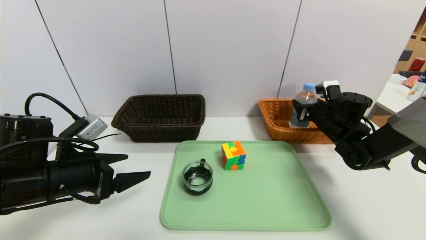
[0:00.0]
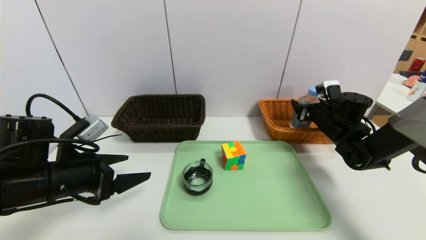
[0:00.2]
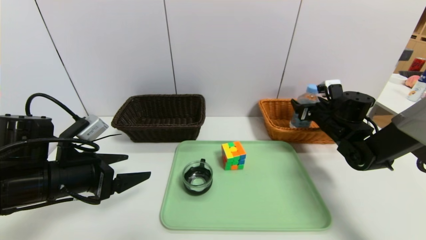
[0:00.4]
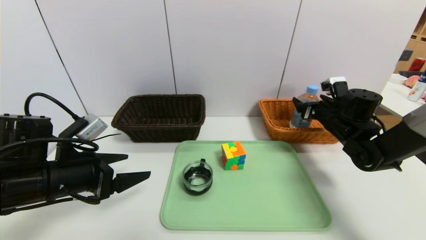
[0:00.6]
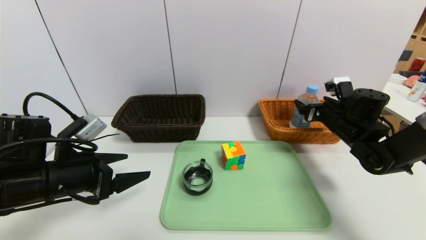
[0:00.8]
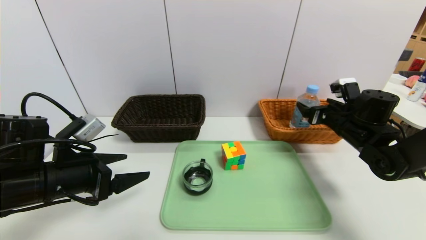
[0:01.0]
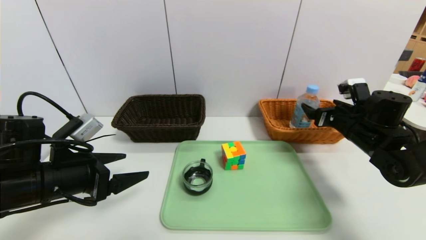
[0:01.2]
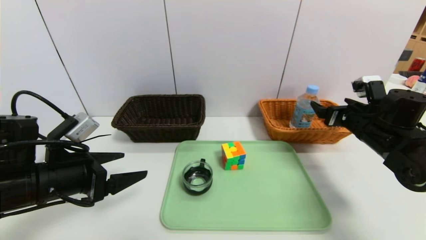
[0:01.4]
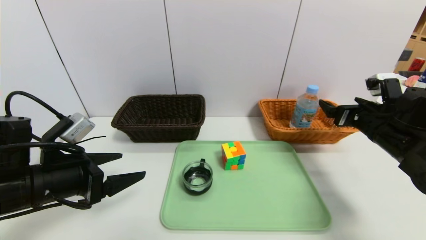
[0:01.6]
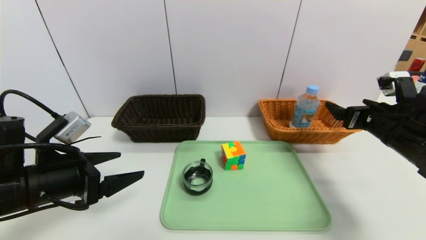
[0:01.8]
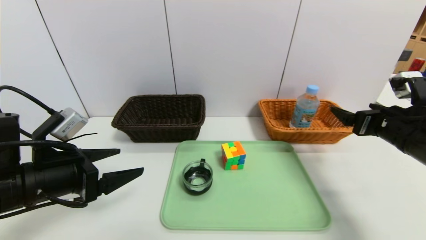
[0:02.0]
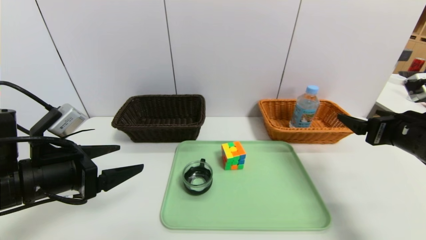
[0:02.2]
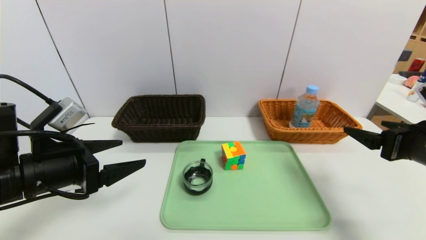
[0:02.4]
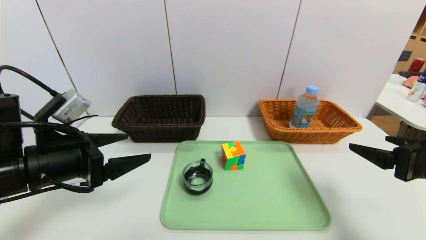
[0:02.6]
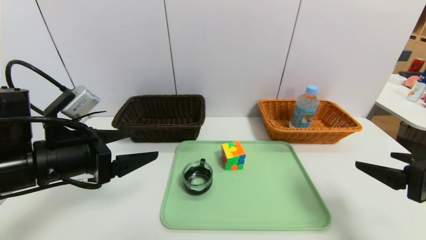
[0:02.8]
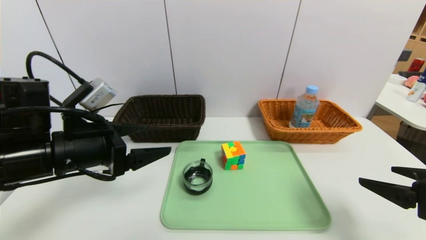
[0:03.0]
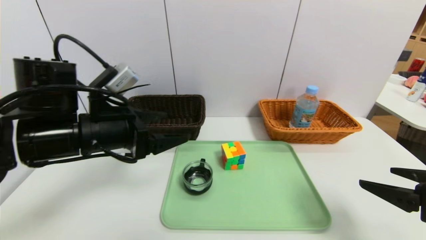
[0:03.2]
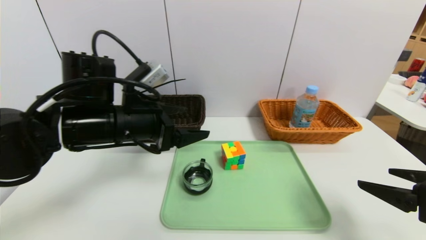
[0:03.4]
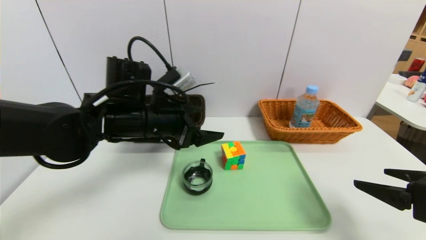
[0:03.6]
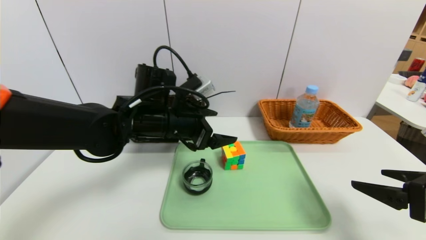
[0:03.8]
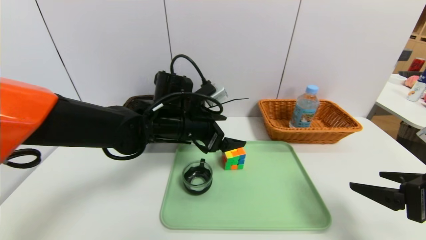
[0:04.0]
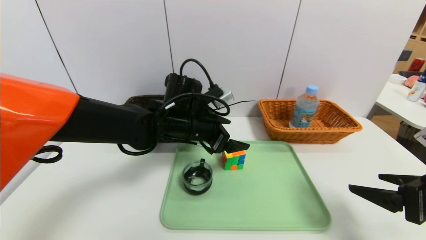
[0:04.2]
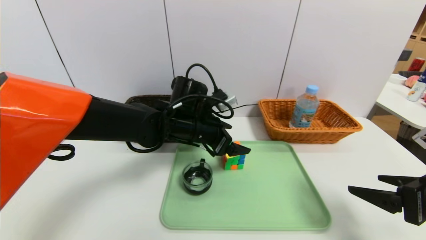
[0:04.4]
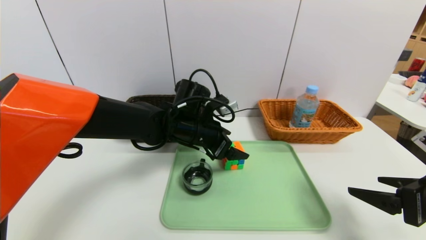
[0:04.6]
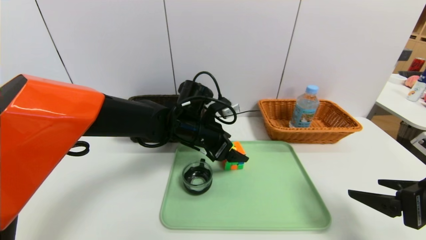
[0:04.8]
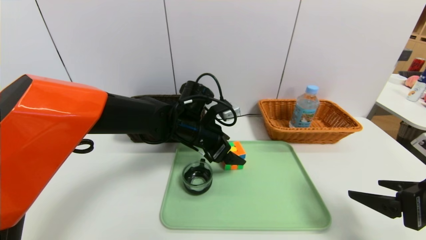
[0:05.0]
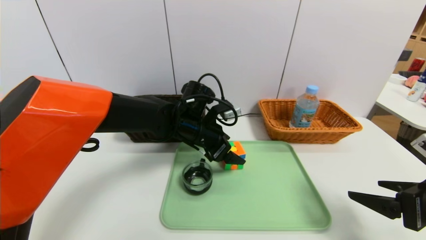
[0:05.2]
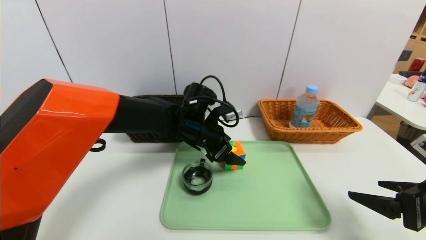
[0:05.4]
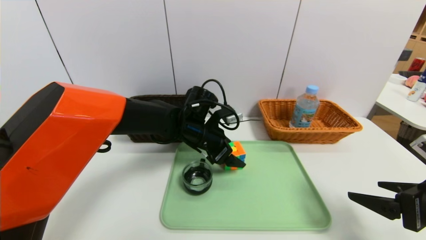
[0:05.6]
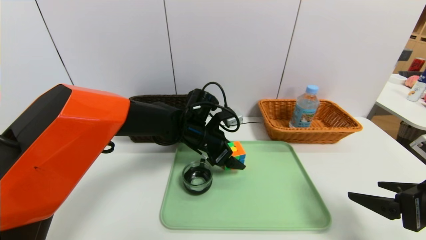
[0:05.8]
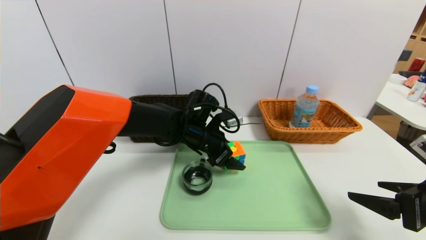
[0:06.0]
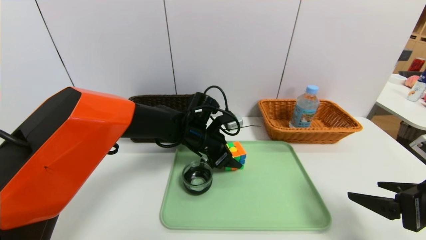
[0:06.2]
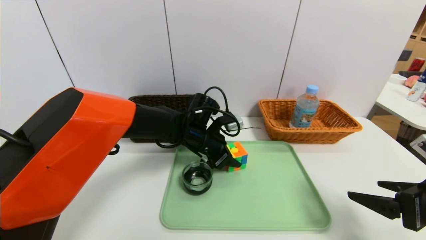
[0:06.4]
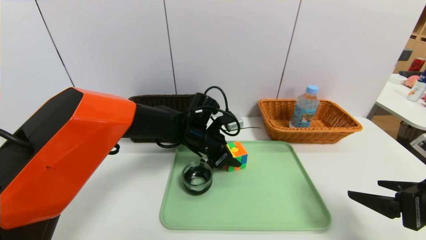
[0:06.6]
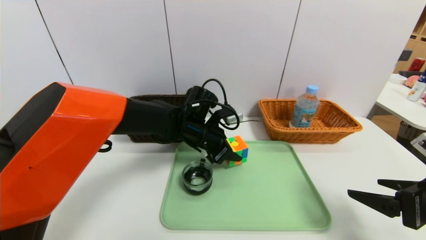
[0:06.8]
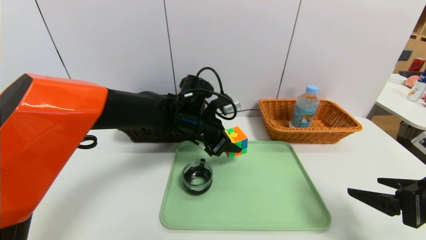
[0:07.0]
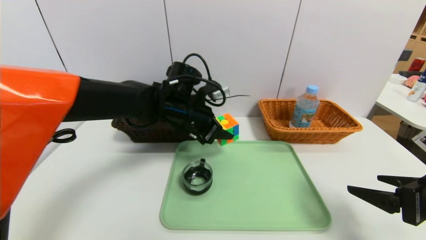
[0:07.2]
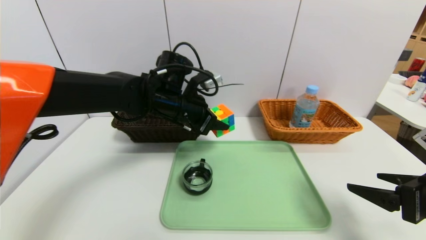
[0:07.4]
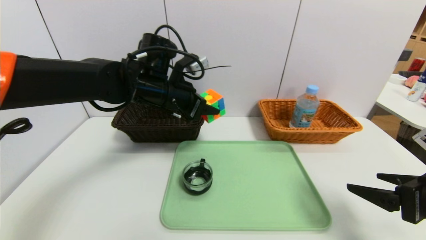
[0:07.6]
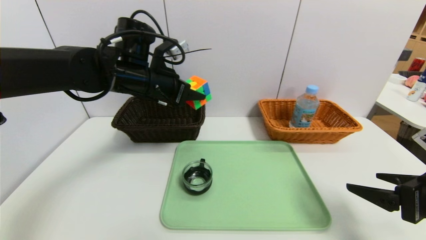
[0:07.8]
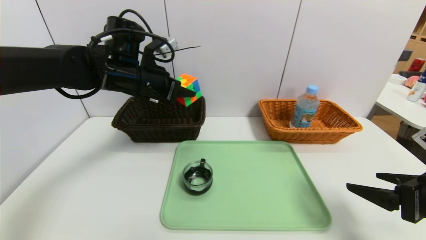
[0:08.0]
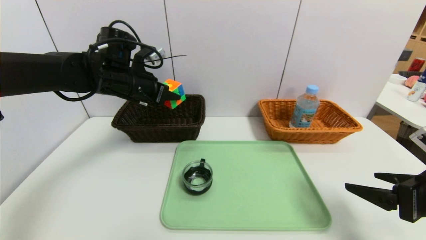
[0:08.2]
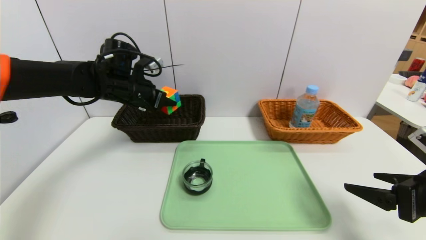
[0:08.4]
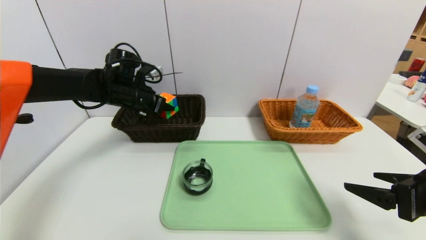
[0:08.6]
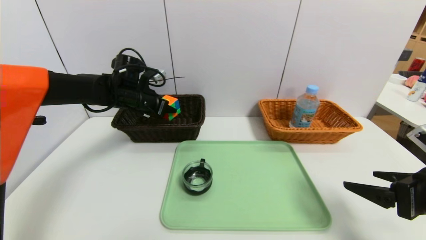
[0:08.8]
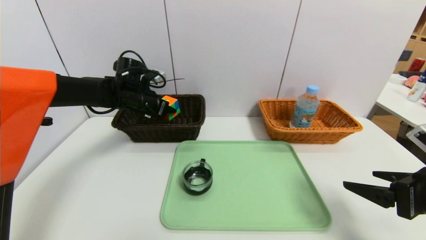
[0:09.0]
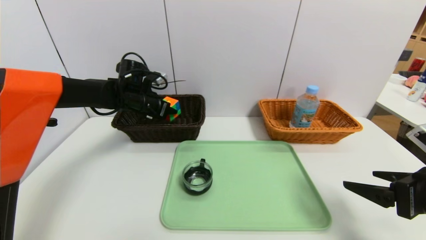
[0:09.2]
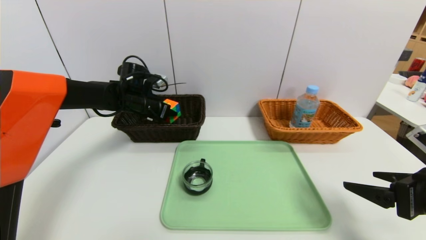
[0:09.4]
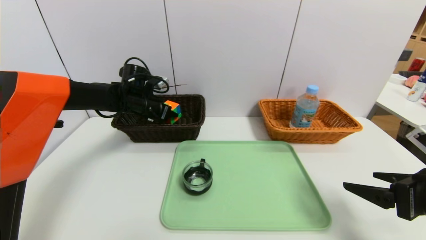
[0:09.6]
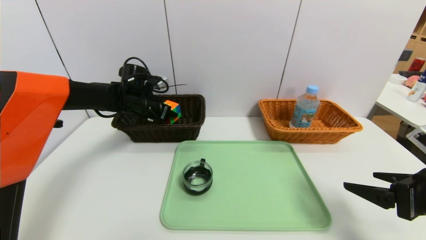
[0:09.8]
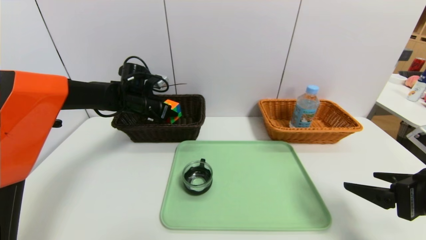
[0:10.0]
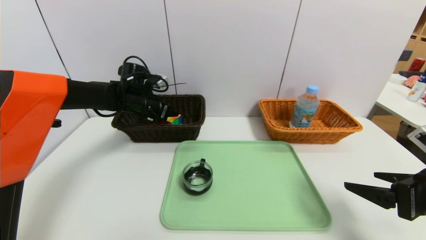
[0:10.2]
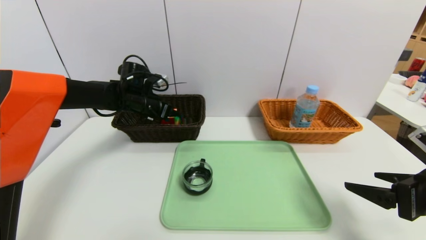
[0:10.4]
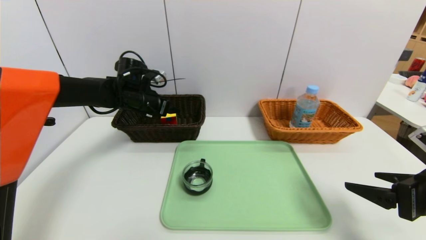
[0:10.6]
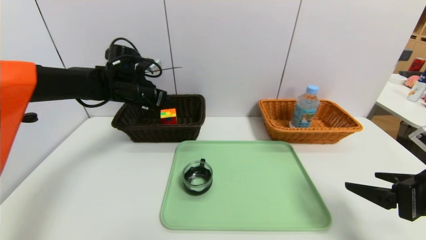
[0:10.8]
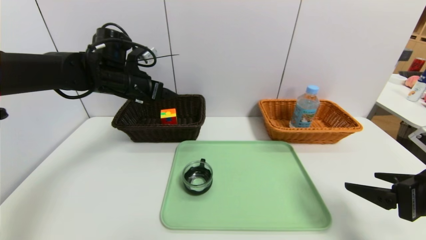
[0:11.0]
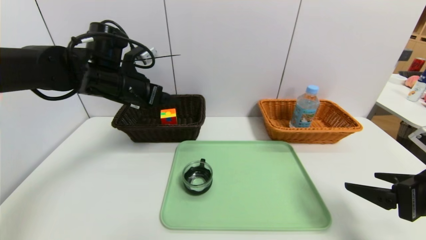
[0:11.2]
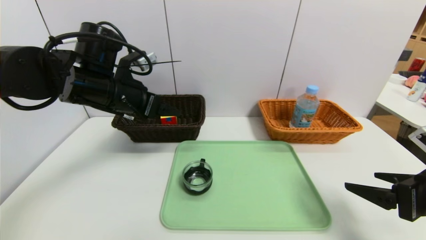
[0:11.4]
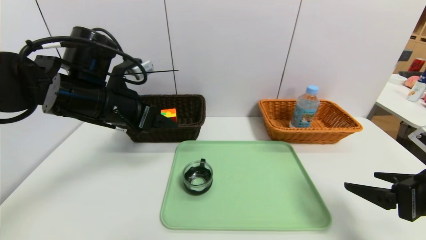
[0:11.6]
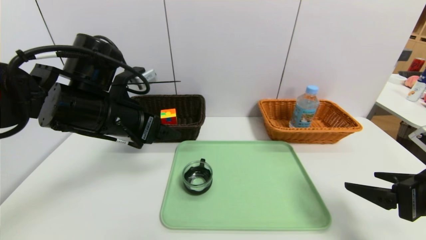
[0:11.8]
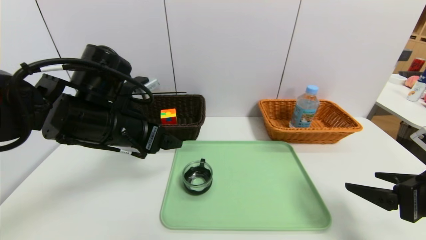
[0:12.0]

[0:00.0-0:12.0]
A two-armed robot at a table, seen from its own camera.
Task of the whole recording: place the food in the right basket with the right gripper, and place the non food items in the left basket with the left gripper.
Step, 0:00.6 to 0:10.6: Grasp the rubiks cube and put it in the left basket.
0:00.0 to 0:01.6: The right gripper moves backward and upward, roughly 10 cm, and opens.
0:01.6 to 0:03.0: The left gripper moves about 5 cm. The right gripper travels backward by about 20 cm.
0:03.0 to 0:04.4: The left gripper moves to the right and forward, some 20 cm.
0:04.4 to 0:06.0: The left gripper shifts by approximately 5 cm.
0:06.0 to 0:07.6: The left gripper heads upward and to the left, covering some 15 cm, and closes.
0:07.6 to 0:09.0: The left gripper goes approximately 15 cm to the left, forward and downward.
0:09.0 to 0:10.4: There are only small adjustments of the grippers.
0:10.4 to 0:12.0: The left gripper moves backward, some 20 cm.

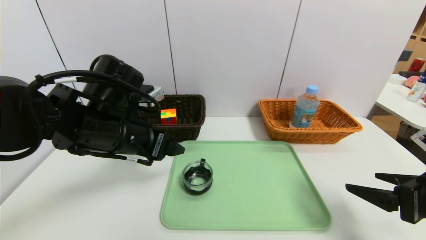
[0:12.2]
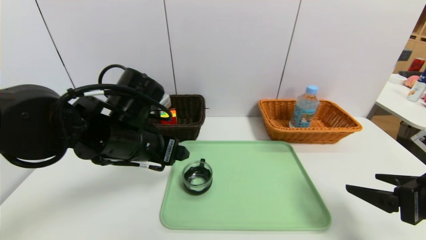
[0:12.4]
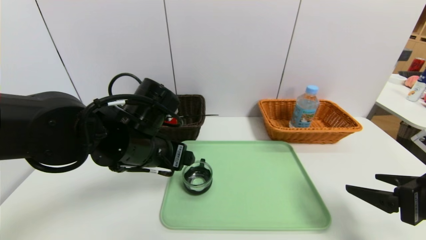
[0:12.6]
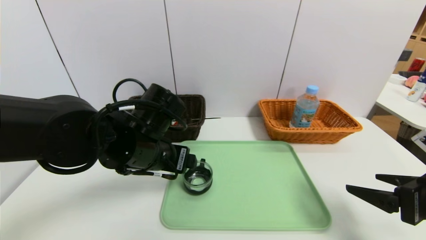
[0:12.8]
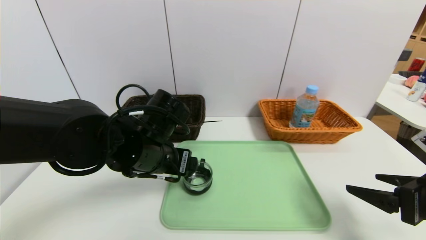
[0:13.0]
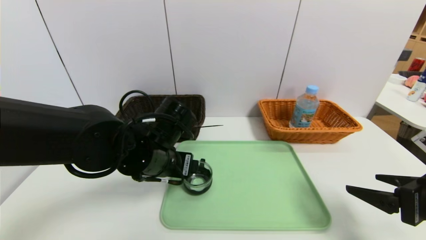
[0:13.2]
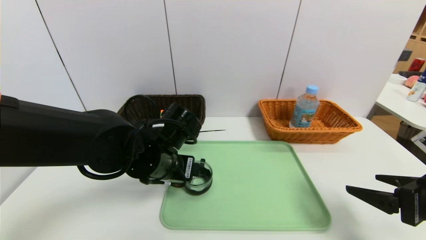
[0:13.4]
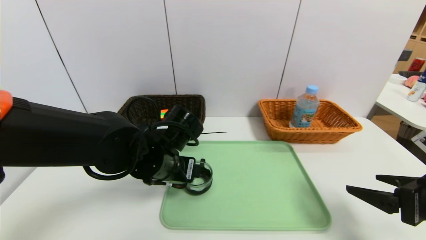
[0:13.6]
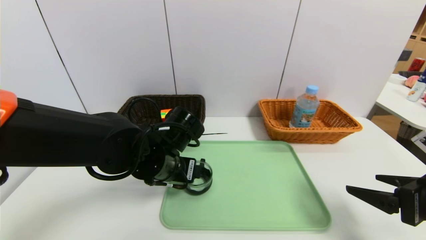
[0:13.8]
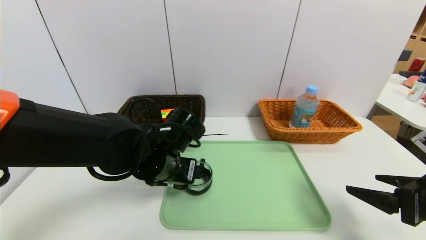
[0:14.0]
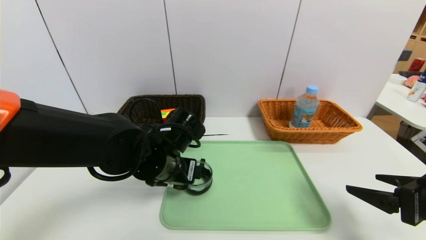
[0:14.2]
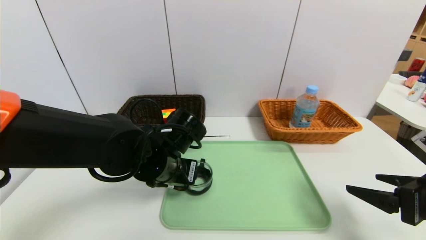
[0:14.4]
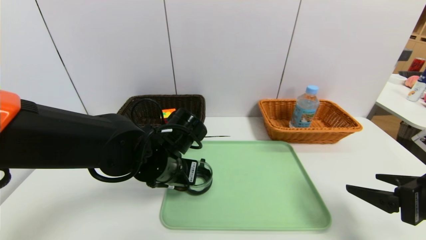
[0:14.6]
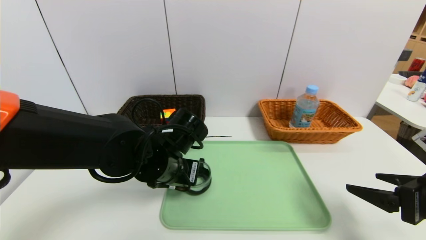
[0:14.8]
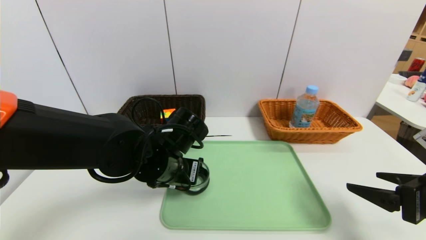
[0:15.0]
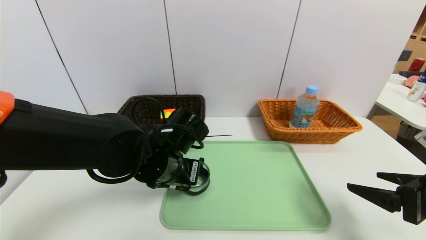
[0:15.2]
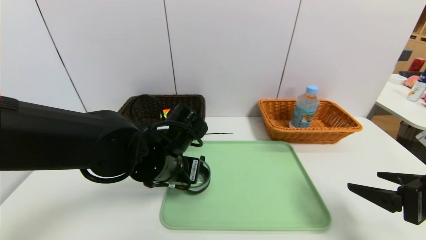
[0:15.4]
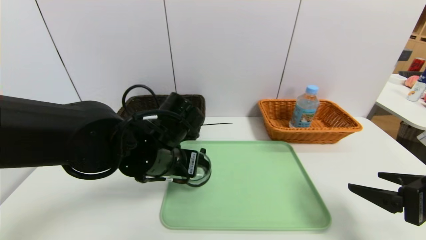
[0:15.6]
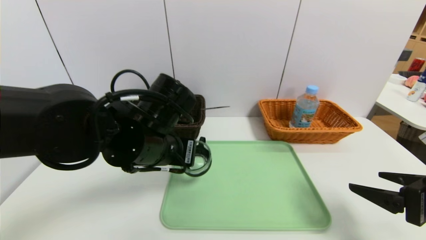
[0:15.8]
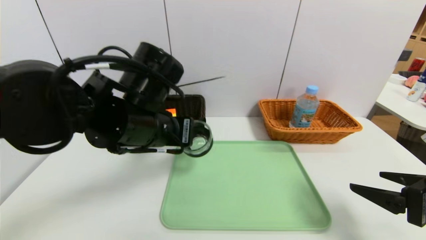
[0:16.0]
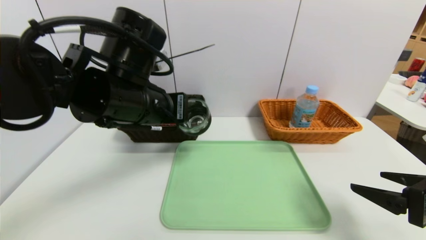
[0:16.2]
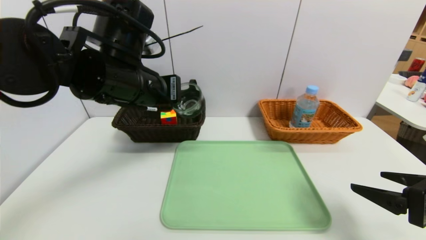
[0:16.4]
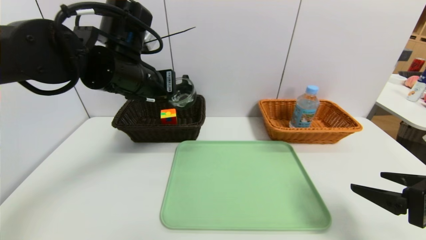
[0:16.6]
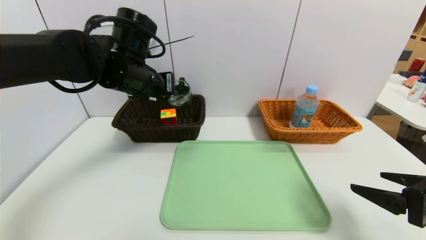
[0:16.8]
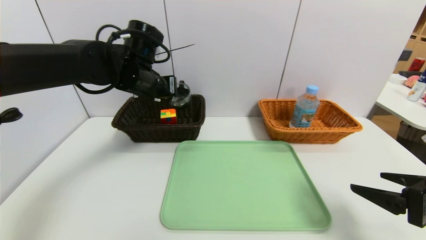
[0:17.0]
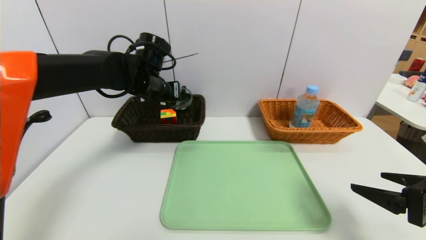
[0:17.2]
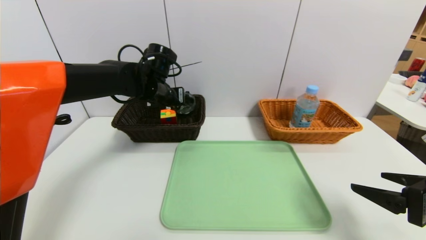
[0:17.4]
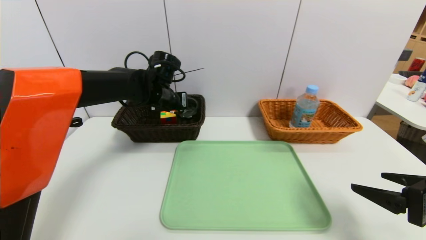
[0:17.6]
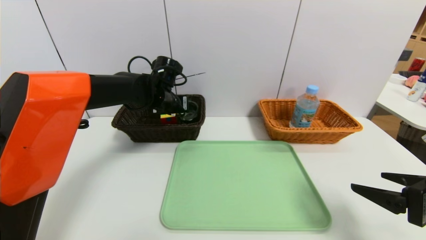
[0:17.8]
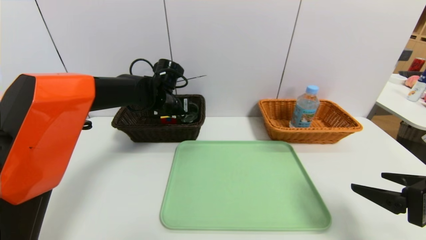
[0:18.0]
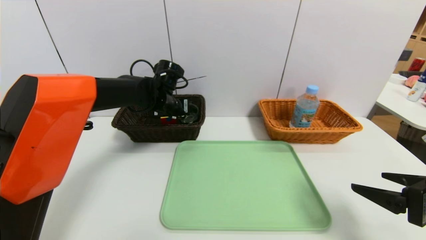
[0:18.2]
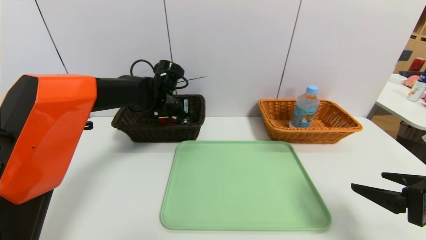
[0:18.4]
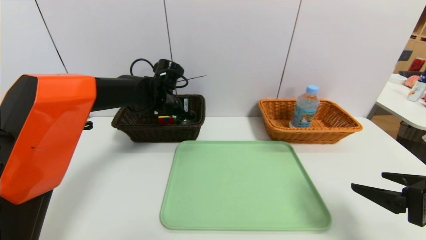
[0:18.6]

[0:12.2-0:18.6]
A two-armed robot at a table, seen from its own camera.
Task of the whole recording: place the food in the right basket with the right gripper, and place the non food items in the left basket with the left gripper.
0:12.2 to 0:13.8: The left gripper is displaced downward and to the right by about 10 cm.
0:13.8 to 0:15.4: The left gripper closes.
0:15.4 to 0:17.0: The left gripper is displaced forward, upward and to the left by approximately 15 cm.
0:17.0 to 0:18.6: The left gripper moves downward and forward, approximately 10 cm, and opens up.
